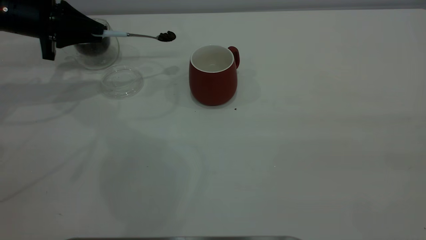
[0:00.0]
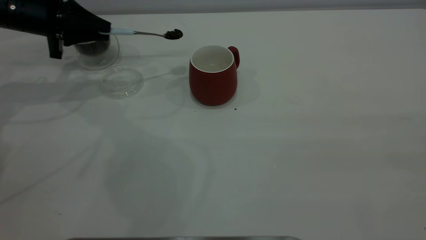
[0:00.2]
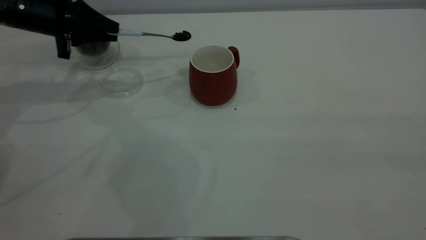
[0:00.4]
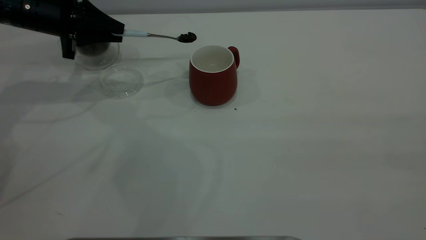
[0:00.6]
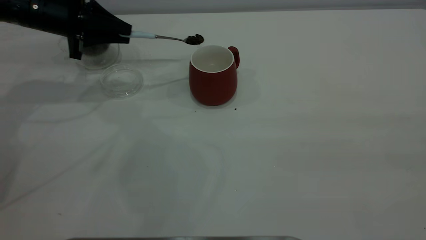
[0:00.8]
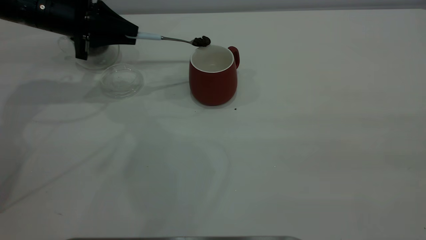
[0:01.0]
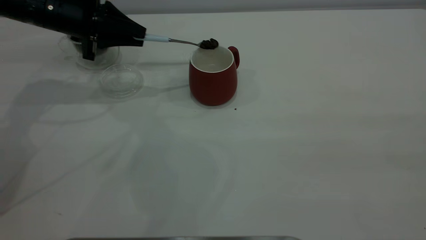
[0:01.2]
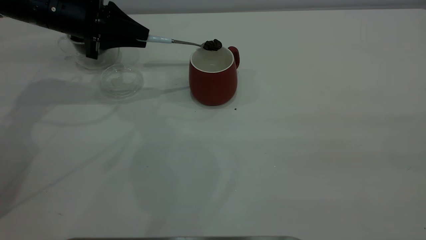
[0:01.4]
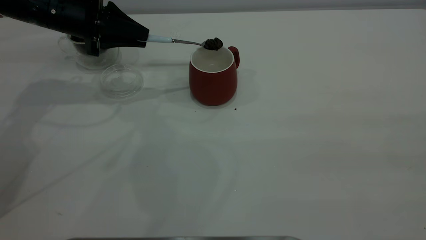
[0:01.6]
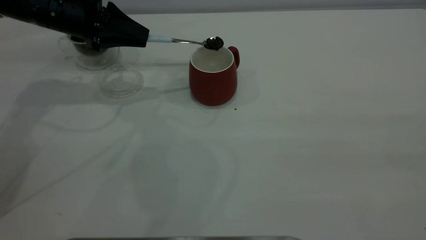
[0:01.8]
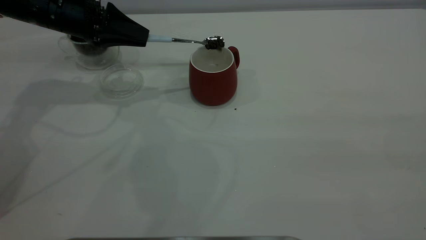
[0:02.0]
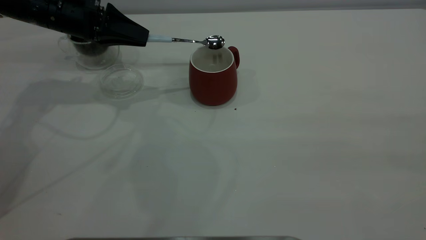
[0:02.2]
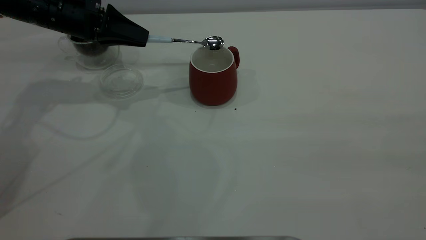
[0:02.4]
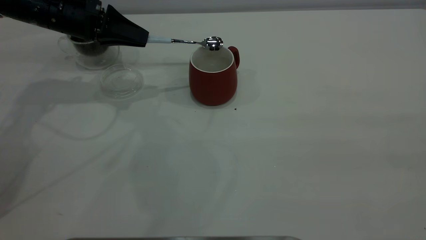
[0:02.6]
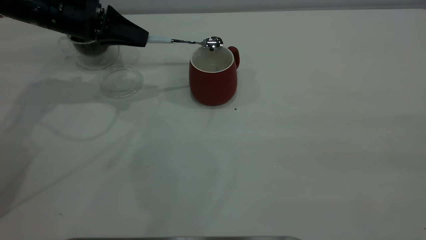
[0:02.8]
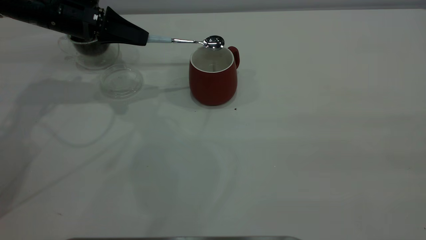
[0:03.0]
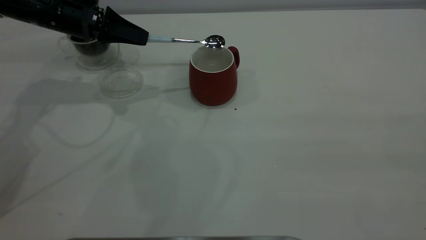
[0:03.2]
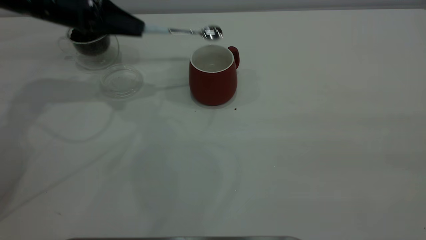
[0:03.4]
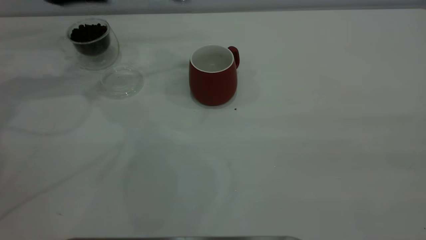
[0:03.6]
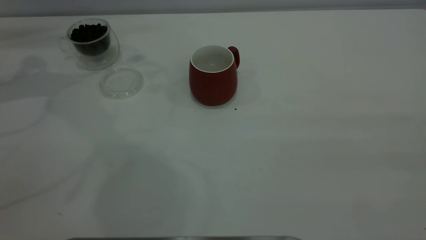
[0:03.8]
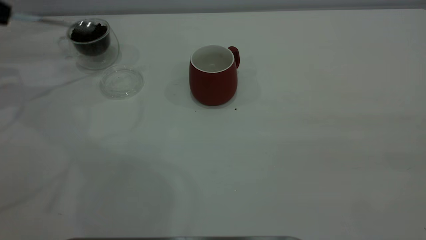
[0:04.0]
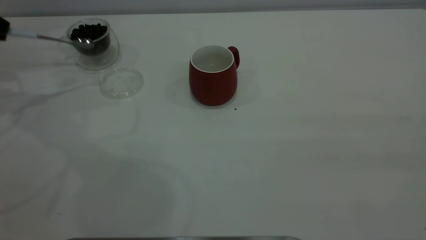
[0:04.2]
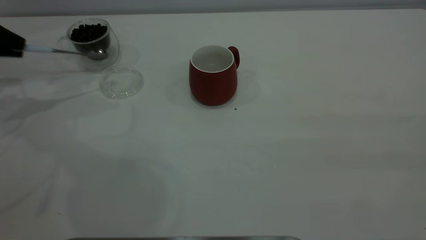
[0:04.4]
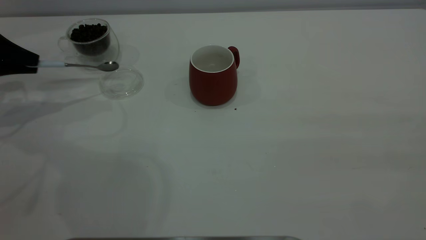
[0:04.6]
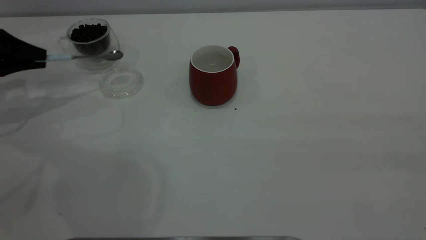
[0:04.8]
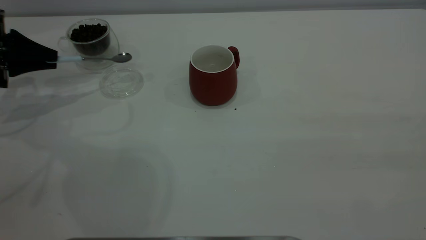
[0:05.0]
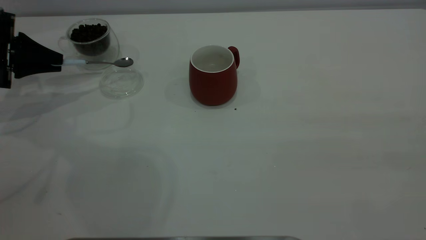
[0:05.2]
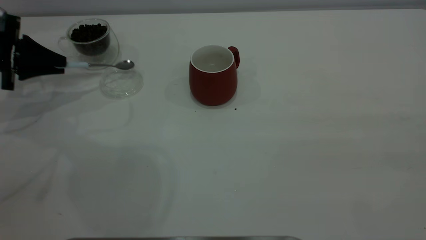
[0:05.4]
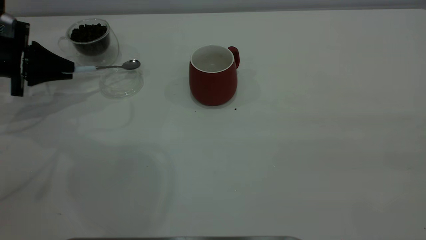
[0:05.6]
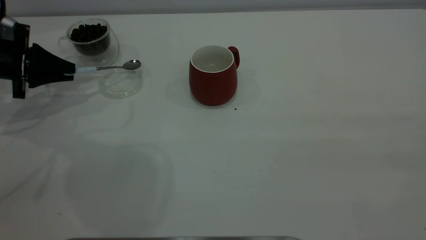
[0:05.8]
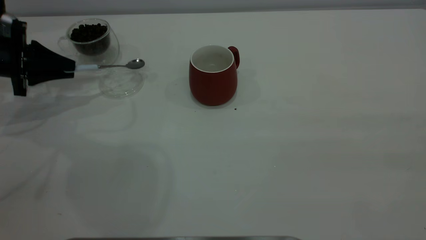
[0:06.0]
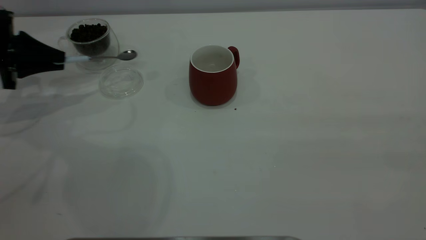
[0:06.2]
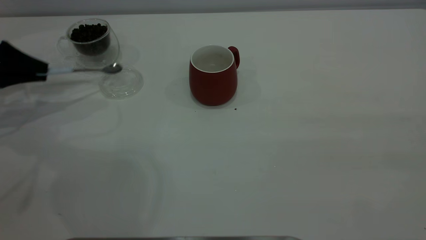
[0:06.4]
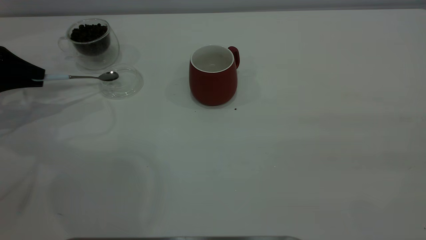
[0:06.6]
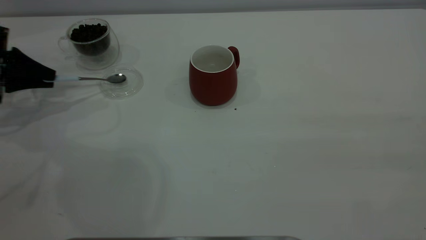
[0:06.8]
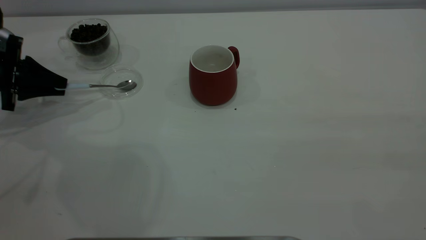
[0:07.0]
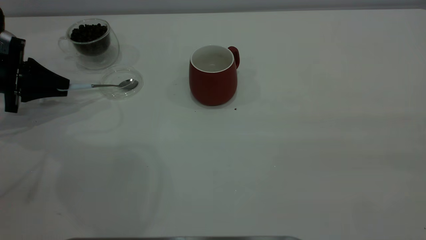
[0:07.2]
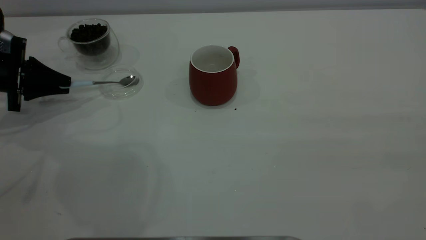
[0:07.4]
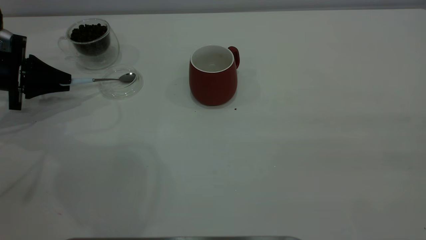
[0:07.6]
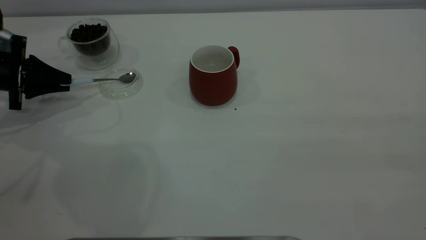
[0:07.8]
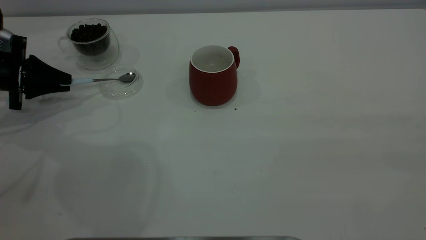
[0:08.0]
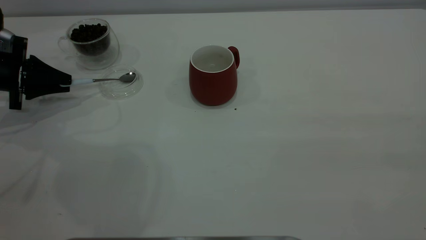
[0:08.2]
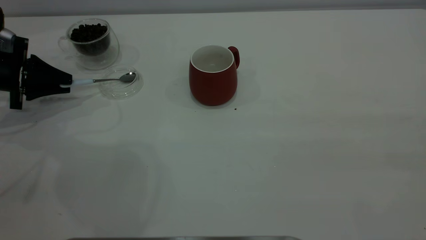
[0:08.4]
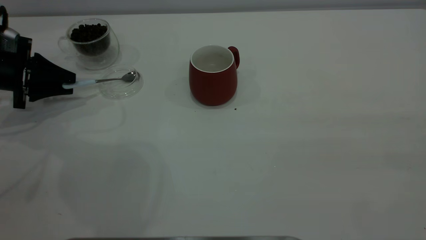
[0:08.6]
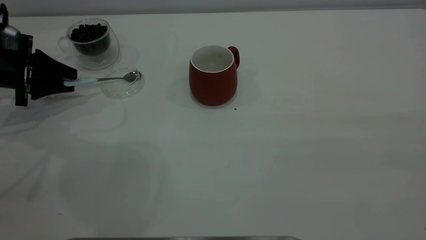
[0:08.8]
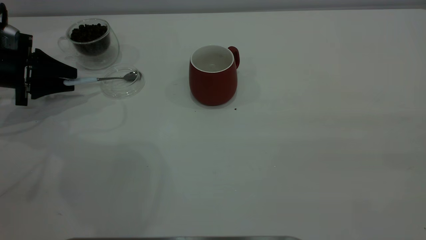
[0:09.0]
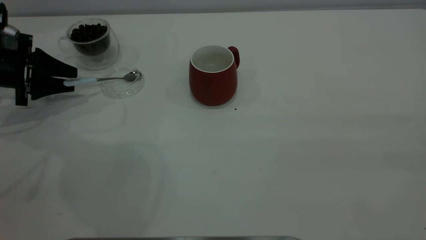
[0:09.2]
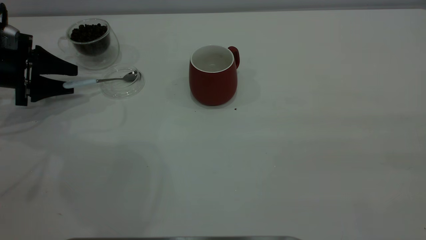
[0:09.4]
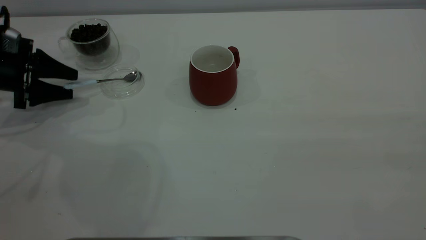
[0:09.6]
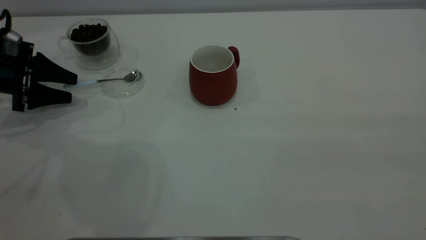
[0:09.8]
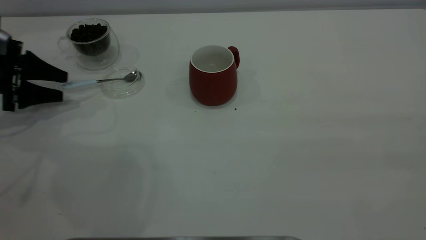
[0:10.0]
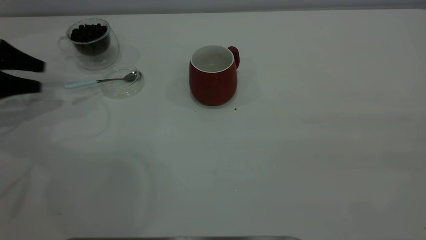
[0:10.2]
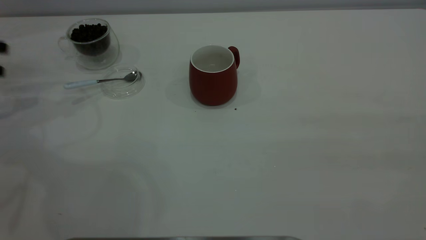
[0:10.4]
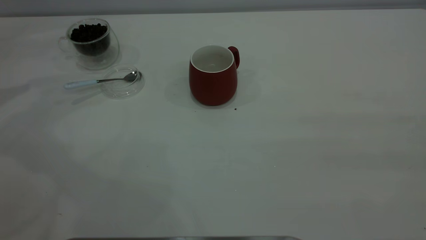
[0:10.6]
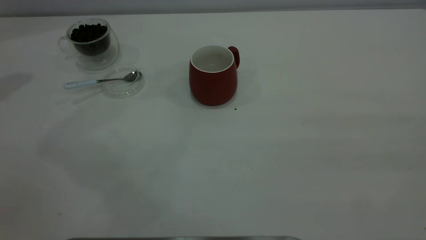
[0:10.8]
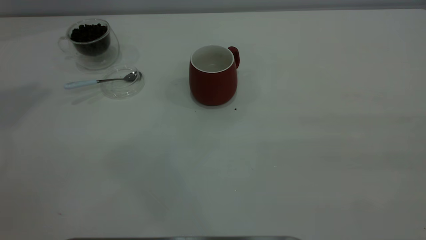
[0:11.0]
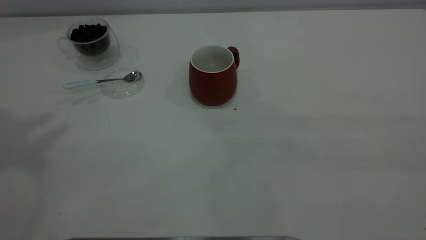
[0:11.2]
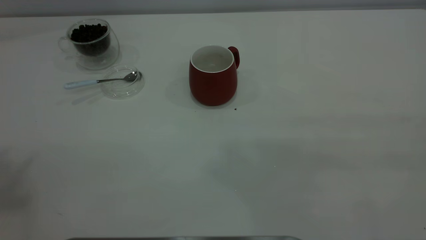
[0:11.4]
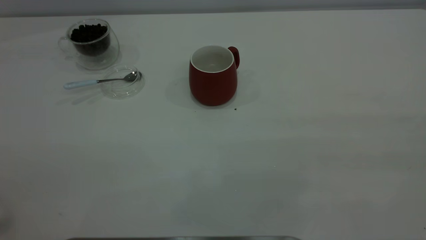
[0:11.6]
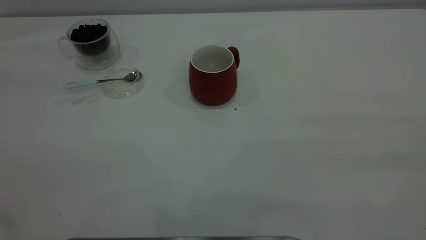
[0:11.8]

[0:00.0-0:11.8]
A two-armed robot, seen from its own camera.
Task of the whole recording: the right gripper place the red cup in the center of the table, the left gripper take the blue spoon from the cup lid and scoop out the coffee beans from the coffee cup and put them into the red cup, the left gripper put the spoon back into the cup lid.
Step, 0:00.0 to 0:03.2: Scoop a spoonful of beans into the cup.
Step, 0:03.6 to 0:10.0: Place the spoon back in its original place.
0:00.0 to 0:01.4: The left gripper heads to the right, covering some 10 cm.
0:03.0 to 0:04.4: The left gripper shifts roughly 20 cm to the left.
0:04.4 to 0:06.0: The left gripper moves downward, about 5 cm.
0:06.0 to 0:07.4: The grippers stay close to where they were, moving slightly.
0:07.4 to 0:08.8: The left gripper opens.
0:08.8 to 0:10.4: The left gripper goes roughly 10 cm to the left and upward, and opens its fingers.
